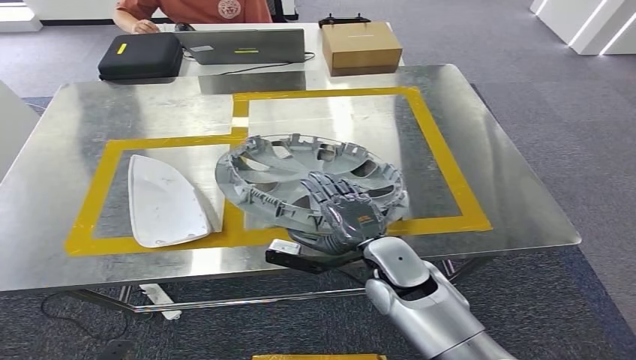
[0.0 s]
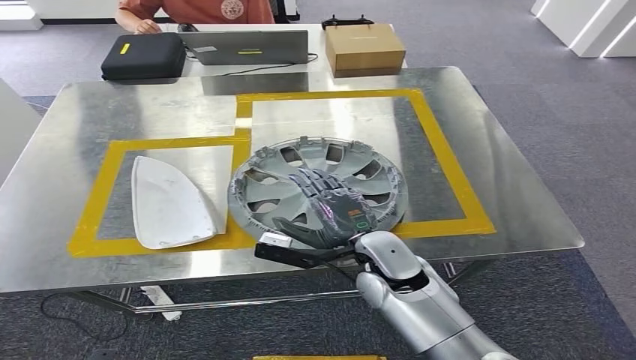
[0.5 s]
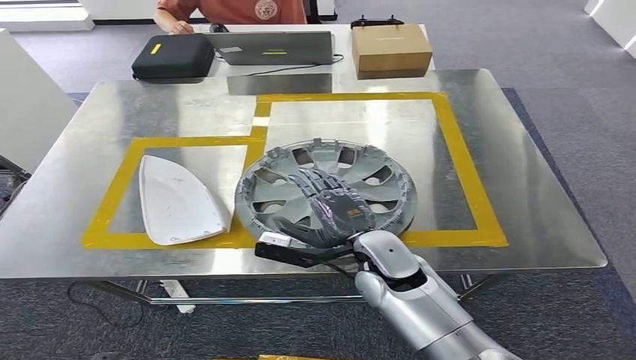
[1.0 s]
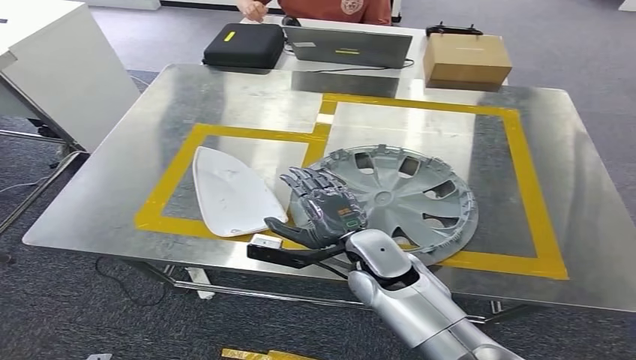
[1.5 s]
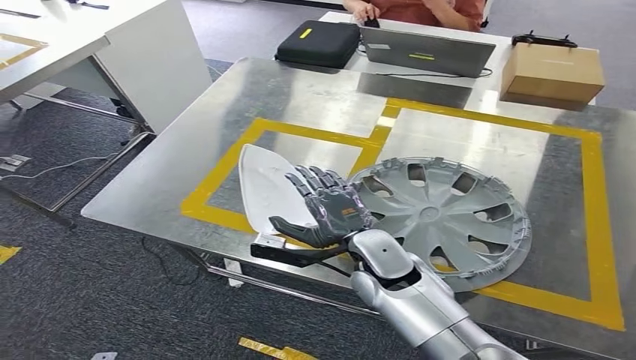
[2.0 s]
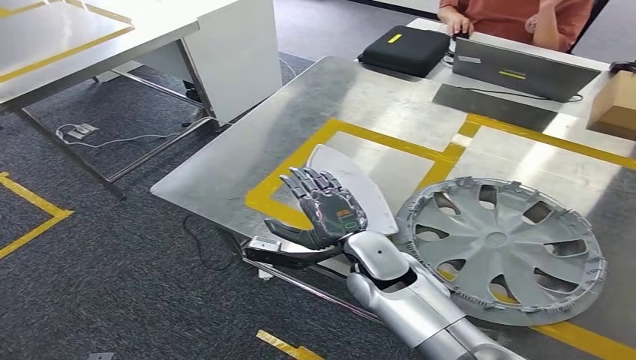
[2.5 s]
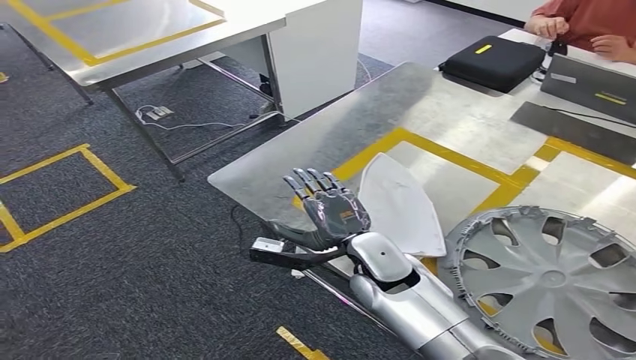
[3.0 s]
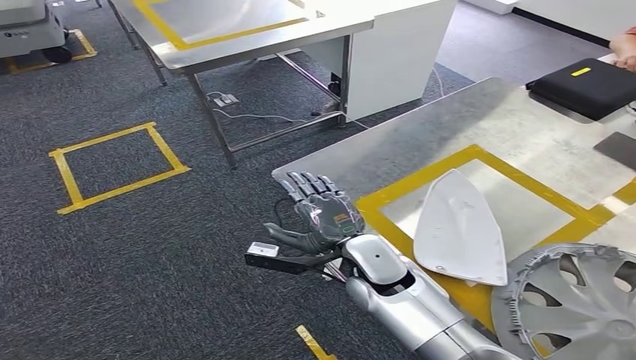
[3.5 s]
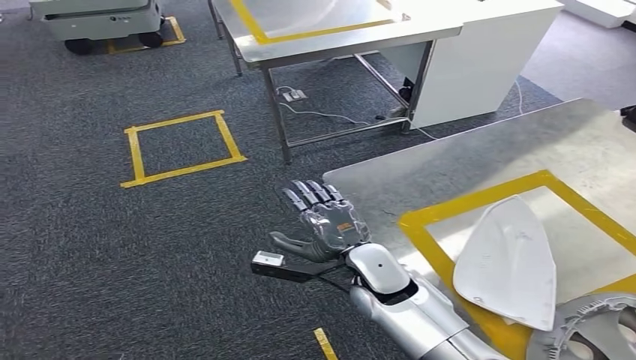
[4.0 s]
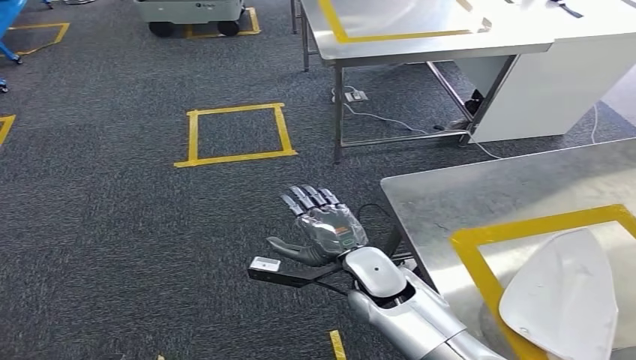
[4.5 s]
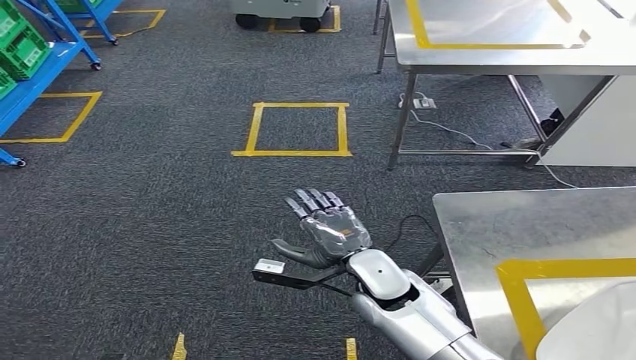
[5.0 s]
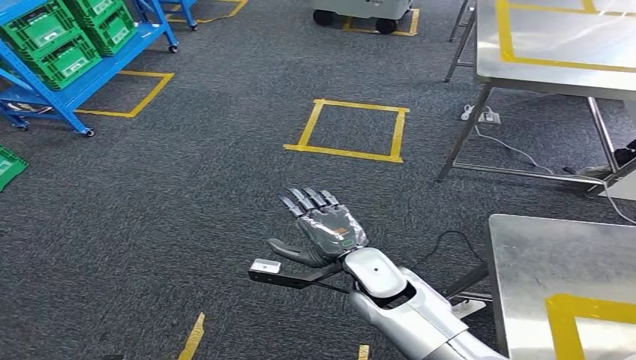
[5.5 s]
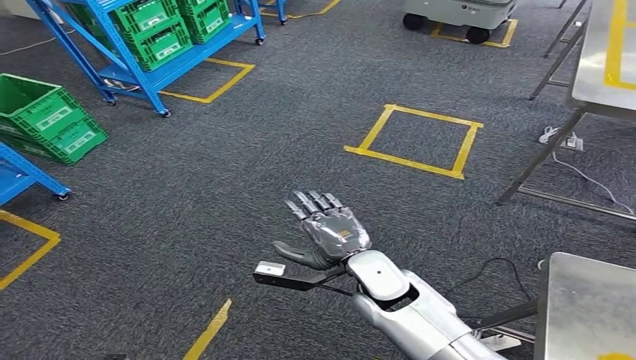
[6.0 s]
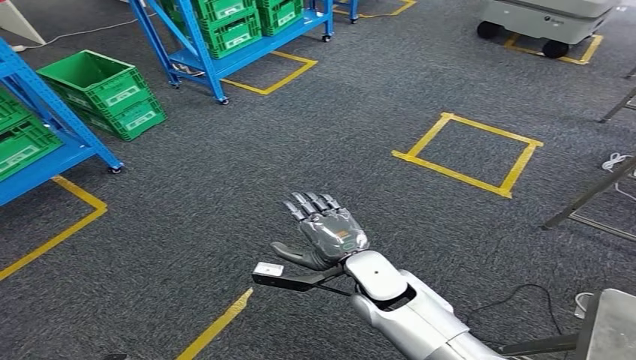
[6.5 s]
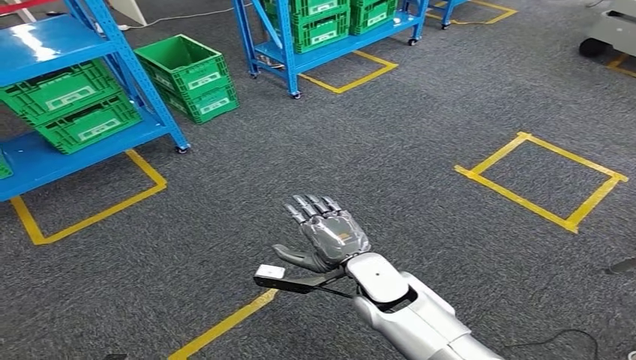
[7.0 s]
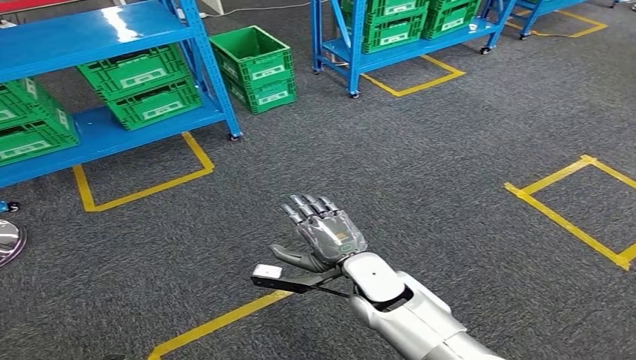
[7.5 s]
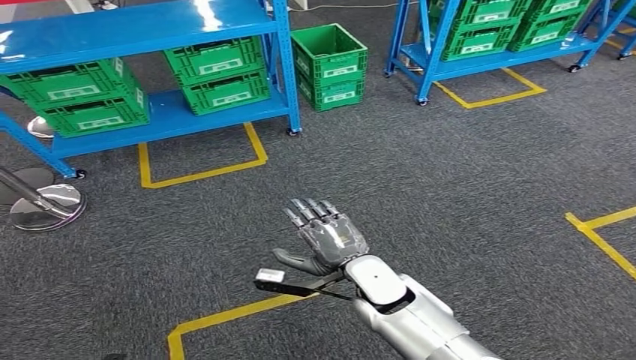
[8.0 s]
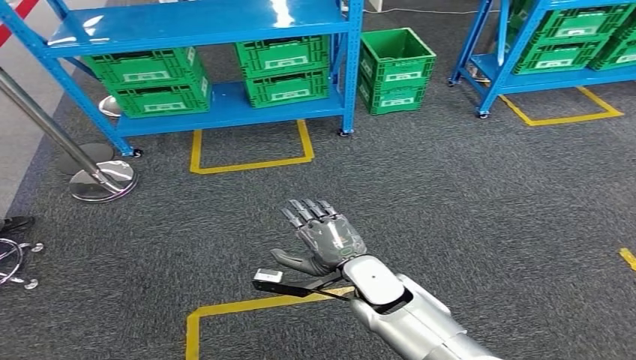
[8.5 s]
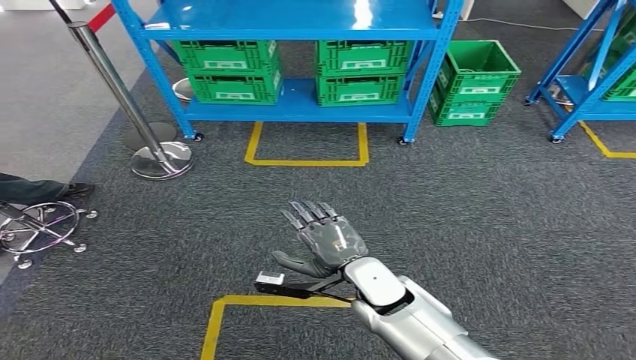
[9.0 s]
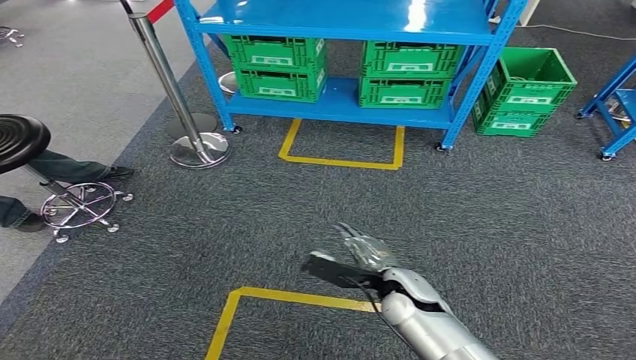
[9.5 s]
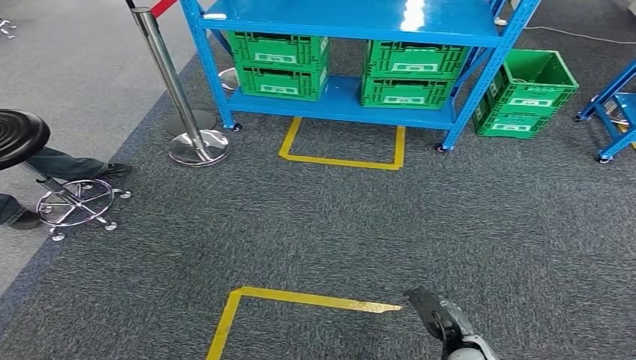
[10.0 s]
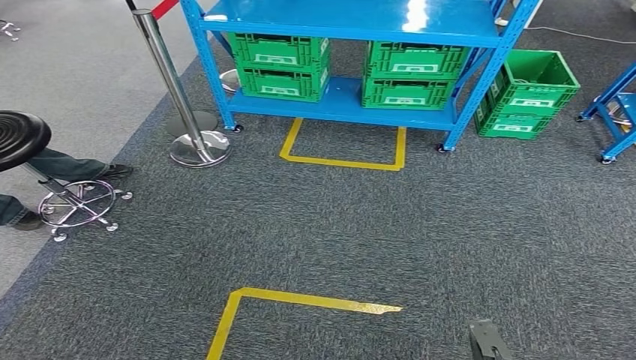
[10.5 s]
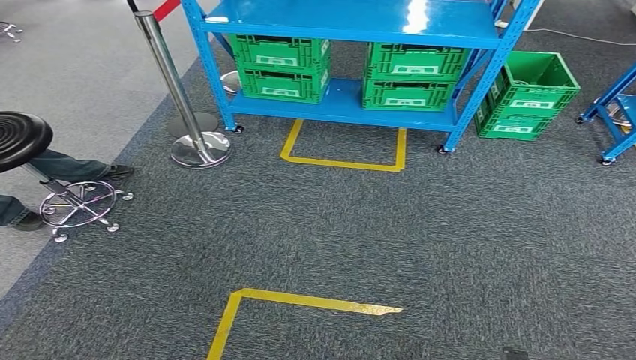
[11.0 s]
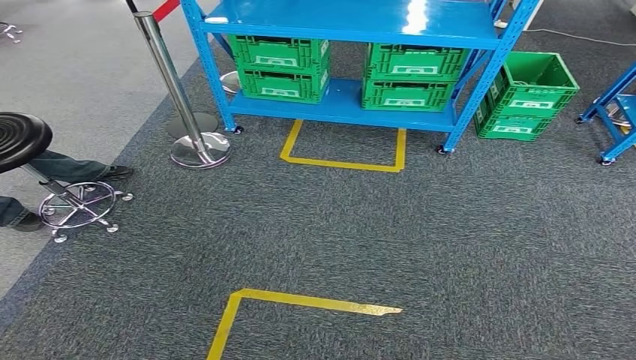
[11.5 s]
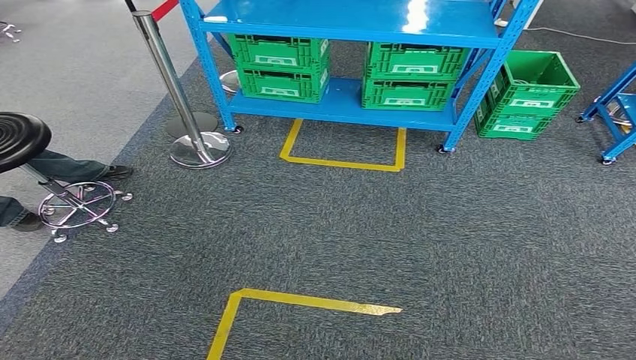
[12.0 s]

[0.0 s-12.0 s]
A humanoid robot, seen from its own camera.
10.0 to 12.0 s: The right hand is displaced backward by approximately 15 cm.

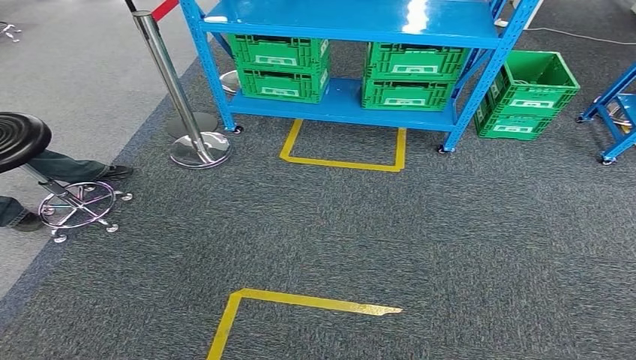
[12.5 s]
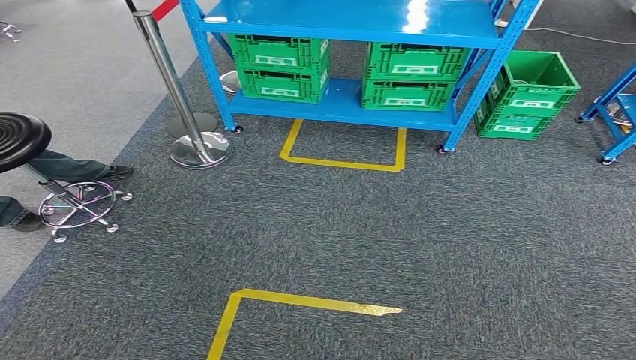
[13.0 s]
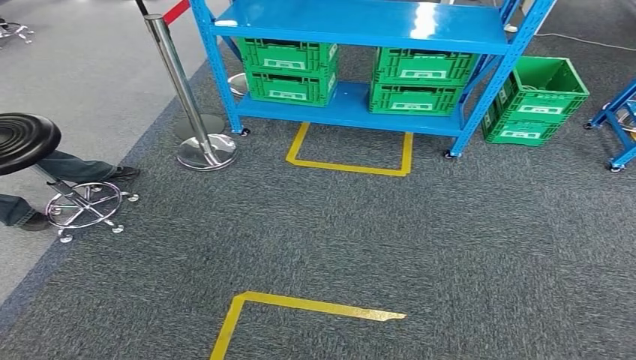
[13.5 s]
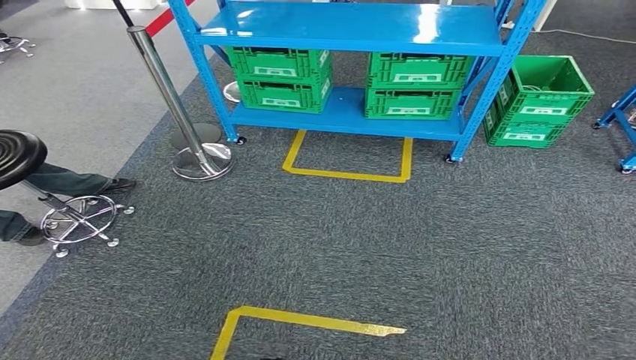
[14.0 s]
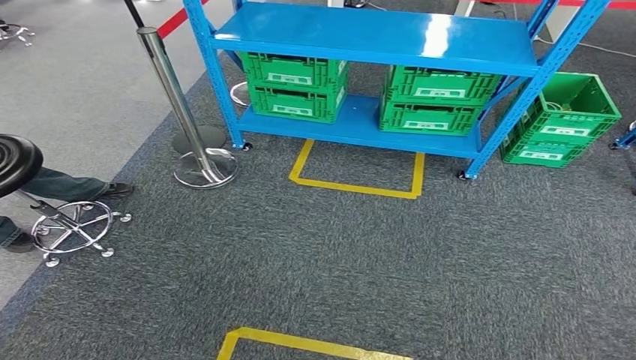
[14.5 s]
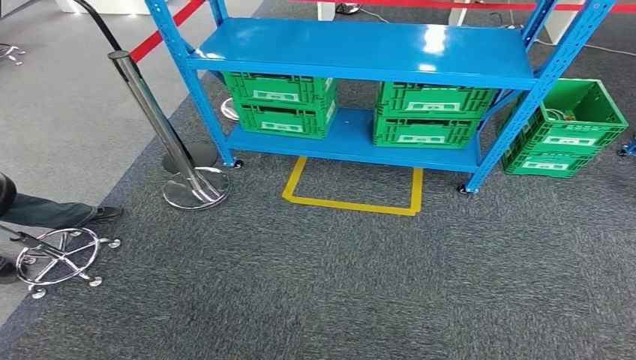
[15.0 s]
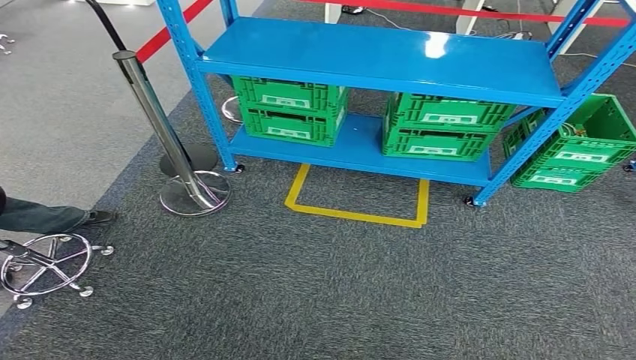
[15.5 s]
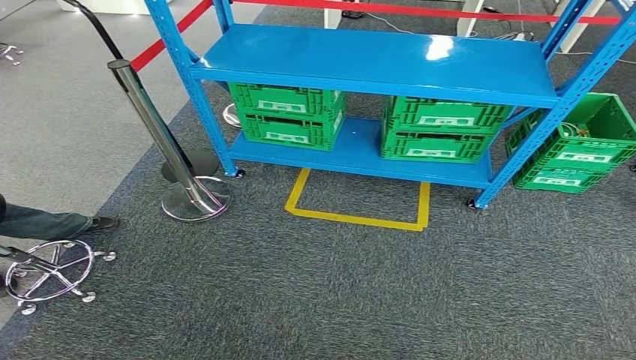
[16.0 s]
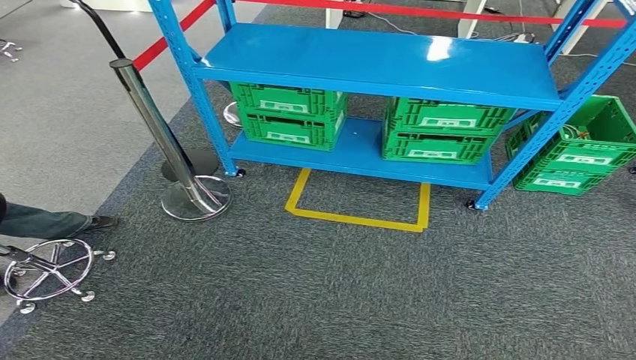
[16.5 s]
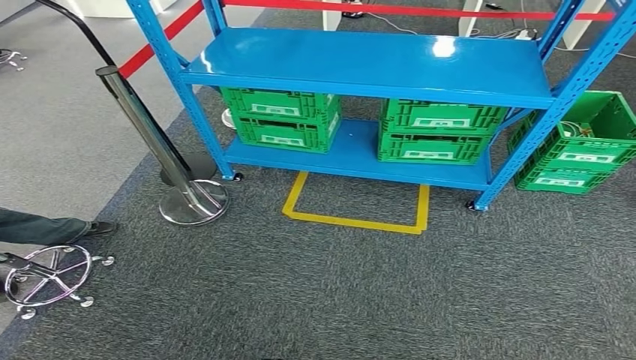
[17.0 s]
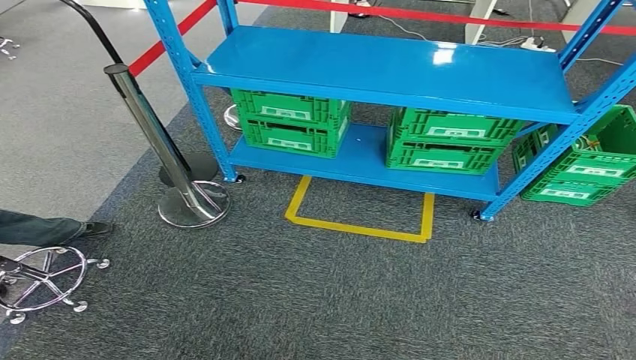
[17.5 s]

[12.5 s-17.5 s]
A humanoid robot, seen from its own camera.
Step, 12.5 to 17.5 s: Move to the initial position of the workbench.
